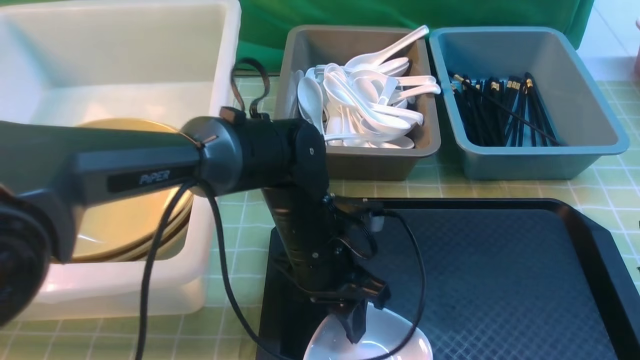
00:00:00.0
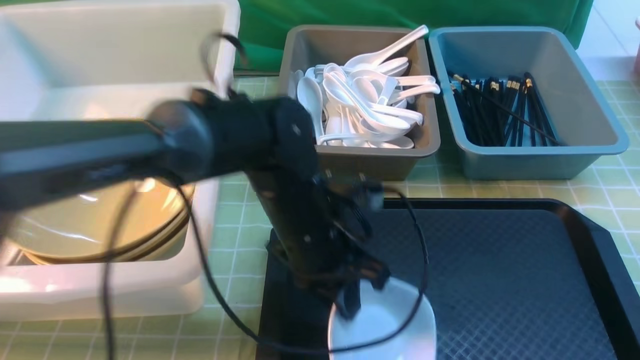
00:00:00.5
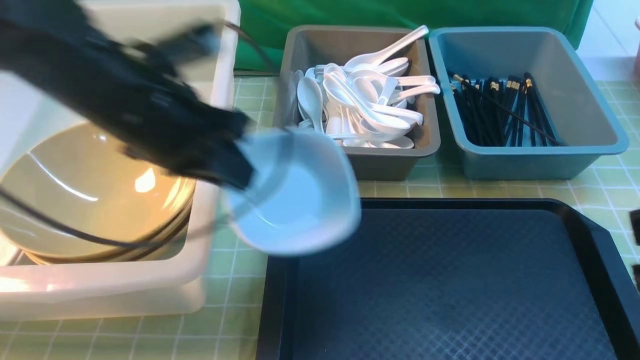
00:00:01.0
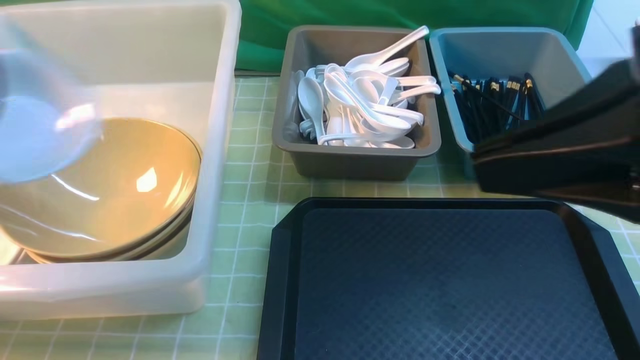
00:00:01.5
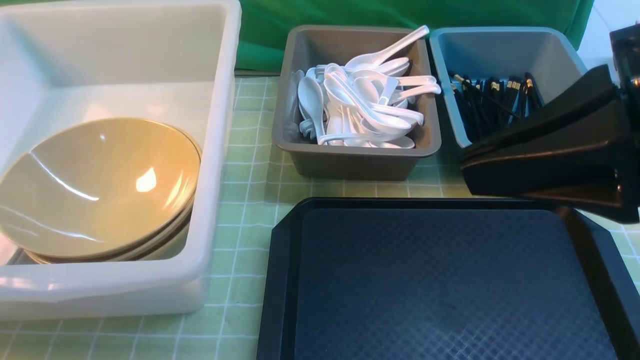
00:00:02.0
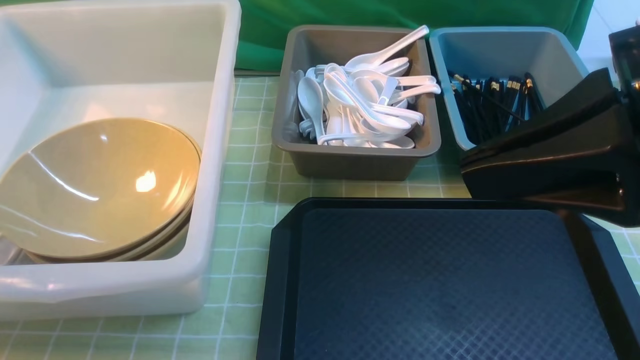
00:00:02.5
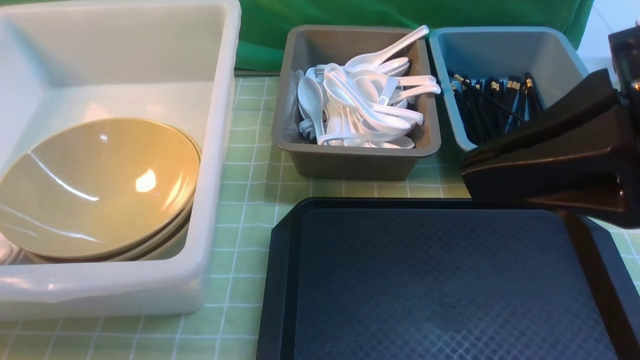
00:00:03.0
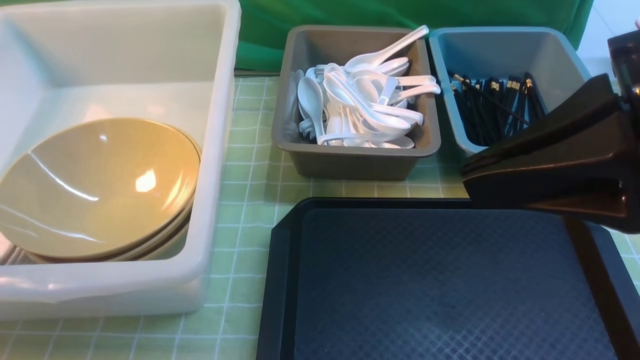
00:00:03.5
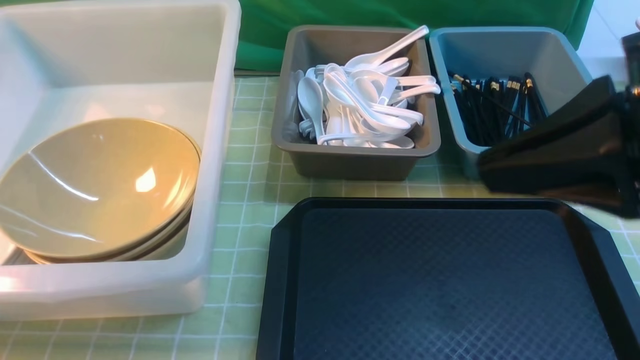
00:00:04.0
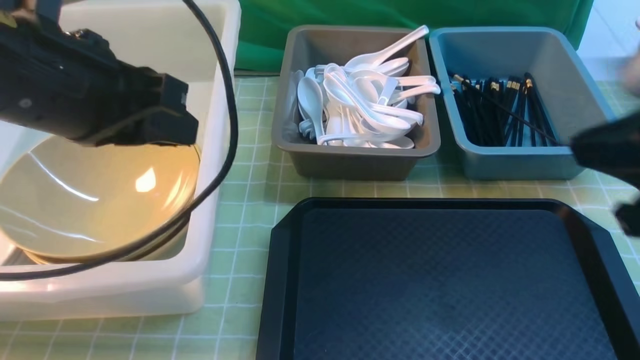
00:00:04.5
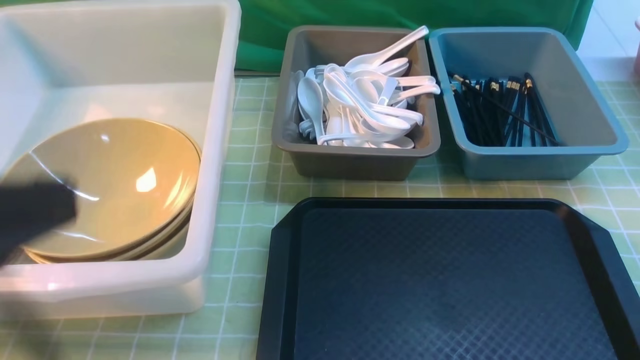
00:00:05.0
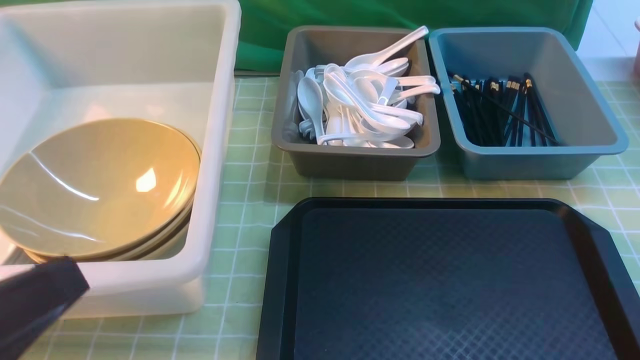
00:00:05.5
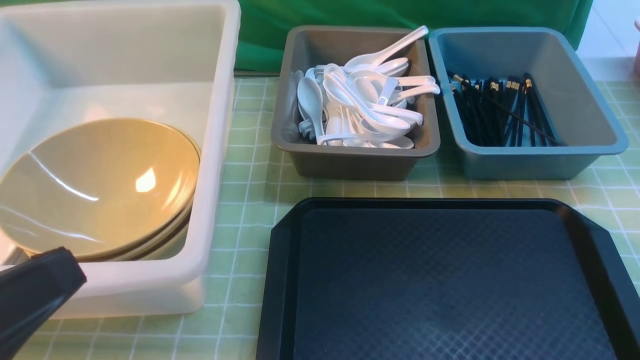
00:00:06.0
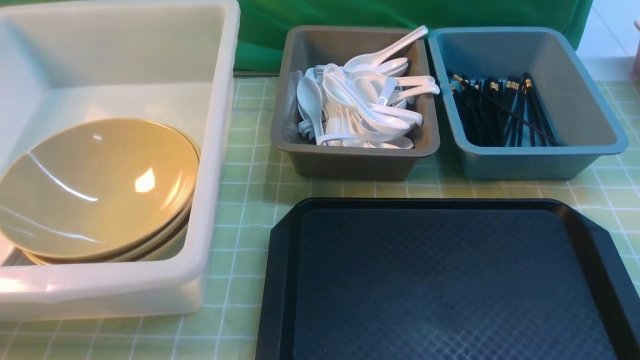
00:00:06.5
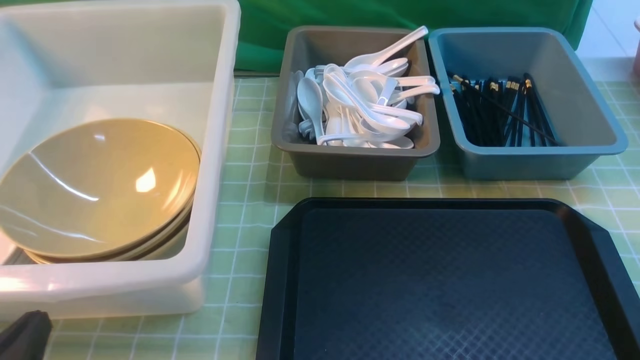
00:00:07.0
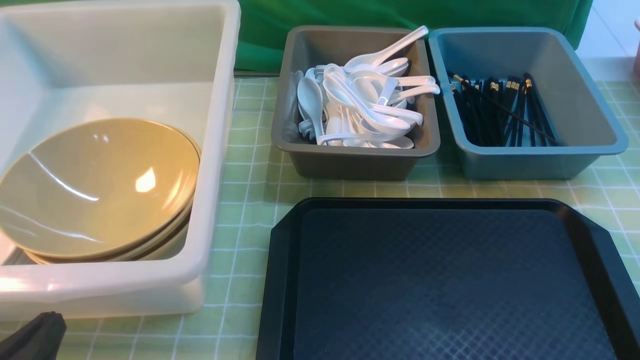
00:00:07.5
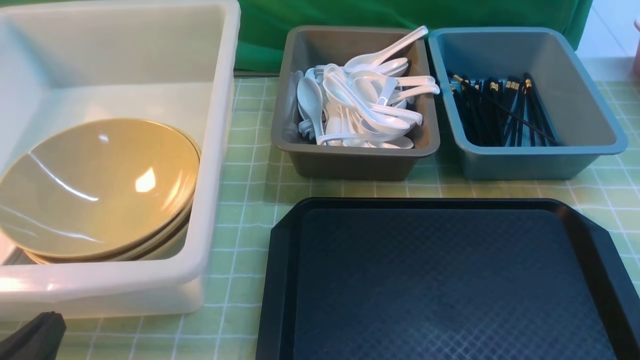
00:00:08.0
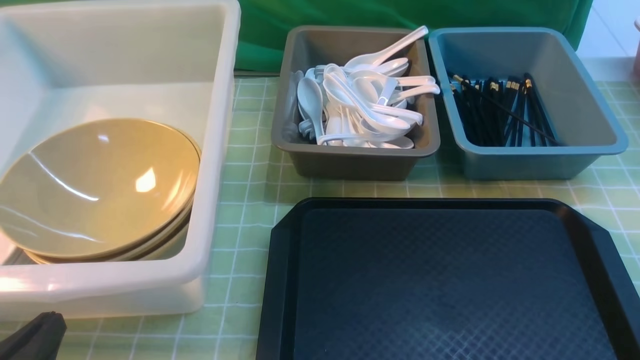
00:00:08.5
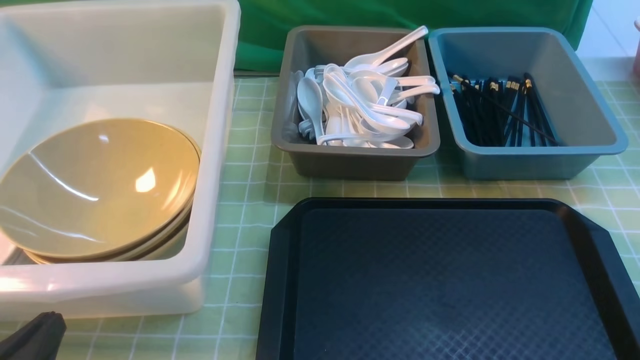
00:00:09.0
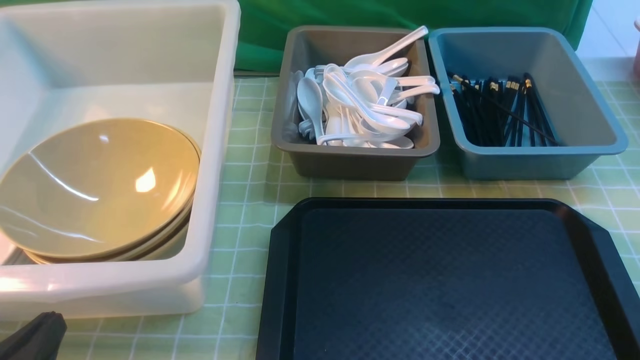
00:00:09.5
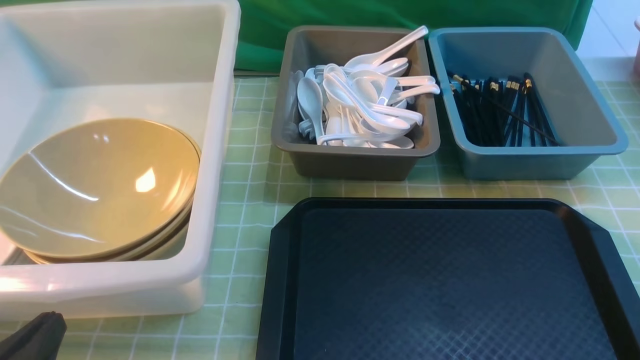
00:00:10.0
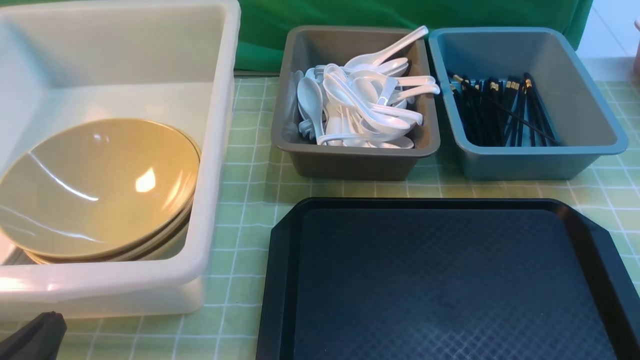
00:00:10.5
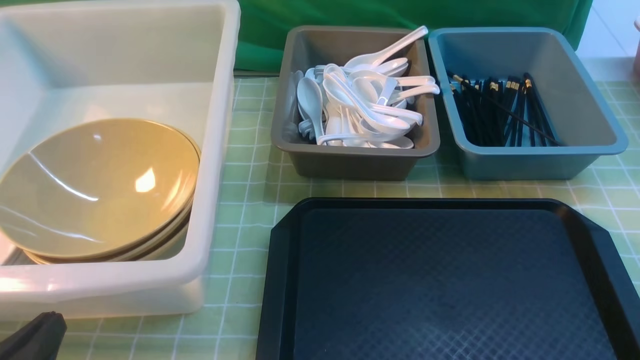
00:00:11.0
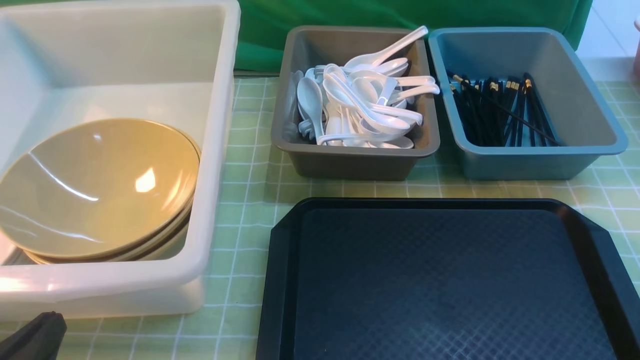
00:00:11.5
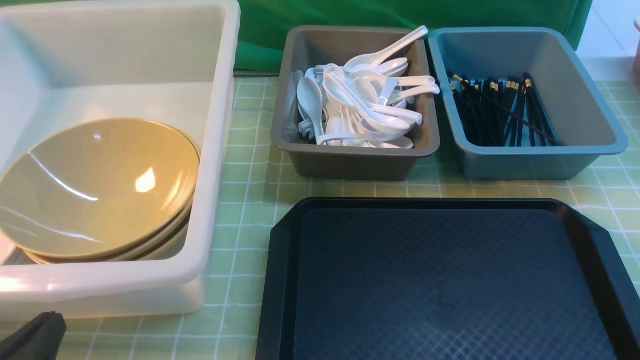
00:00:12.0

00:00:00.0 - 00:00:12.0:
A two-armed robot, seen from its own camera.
Task of the whole recording: on green table put chopsticks spoon bowls plates into blue grey white boxes.
Step, 00:00:01.5 - 00:00:03.5: use the left arm to put the plate into the large storage box on the left.
00:00:00.0 - 00:00:02.0: The right gripper is displaced forward by roughly 5 cm, and closes, while the left gripper moves to the left and upward, roughly 40 cm, and closes its fingers.
00:00:02.0 - 00:00:04.0: The left gripper shifts about 5 cm to the right, moves approximately 5 cm downward and comes back, and opens.
00:00:04.0 - 00:00:06.0: The left gripper is displaced backward and to the right by approximately 25 cm, and closes up; the right gripper moves backward, downward and to the right, approximately 20 cm.
00:00:06.0 - 00:00:08.0: The left gripper travels downward by roughly 15 cm.
00:00:10.0 - 00:00:12.0: Neither gripper changes place.
